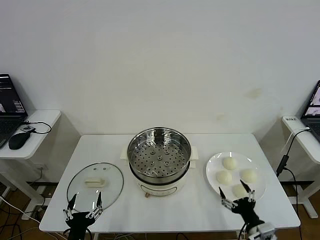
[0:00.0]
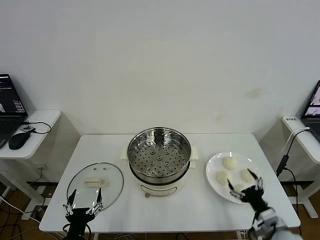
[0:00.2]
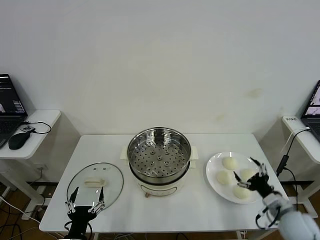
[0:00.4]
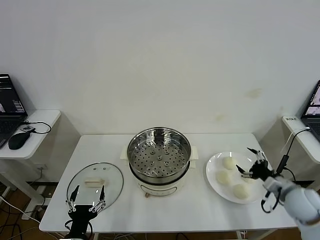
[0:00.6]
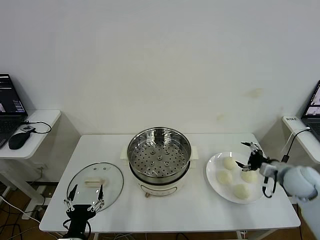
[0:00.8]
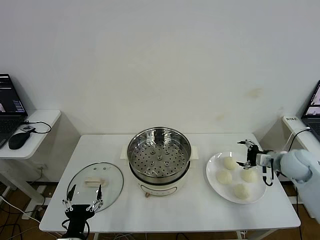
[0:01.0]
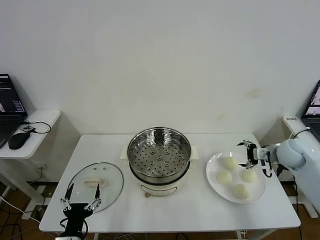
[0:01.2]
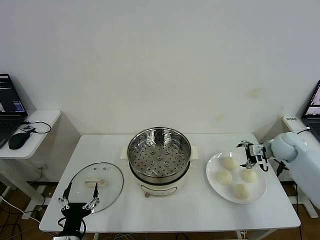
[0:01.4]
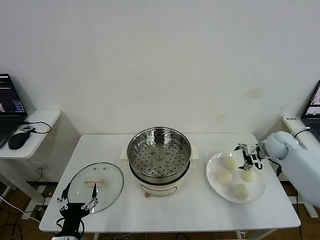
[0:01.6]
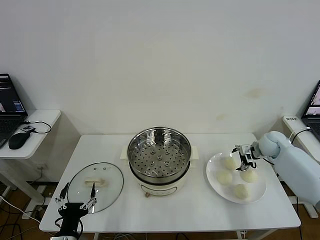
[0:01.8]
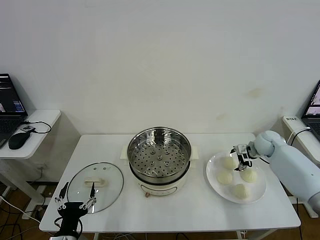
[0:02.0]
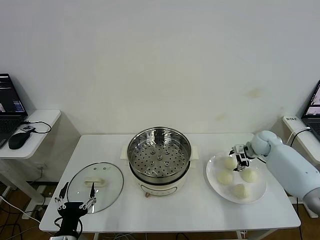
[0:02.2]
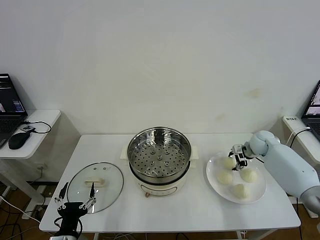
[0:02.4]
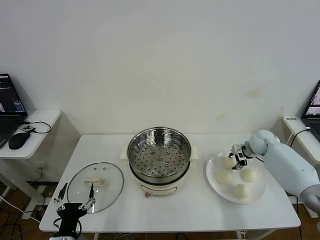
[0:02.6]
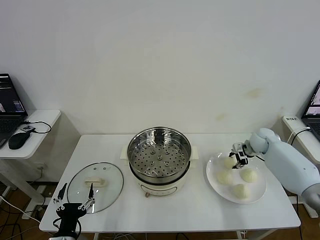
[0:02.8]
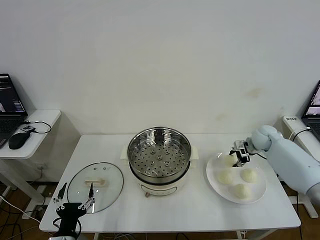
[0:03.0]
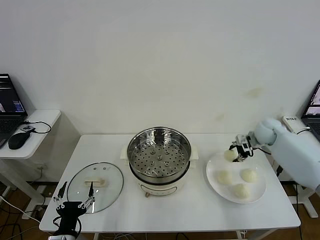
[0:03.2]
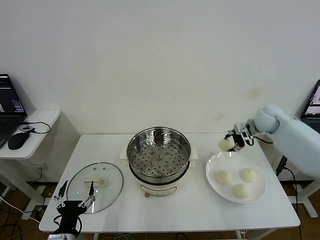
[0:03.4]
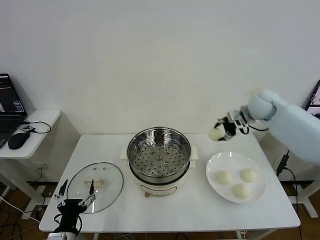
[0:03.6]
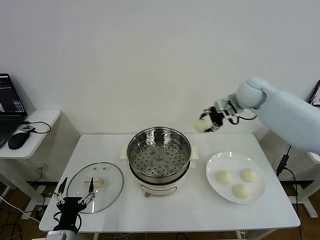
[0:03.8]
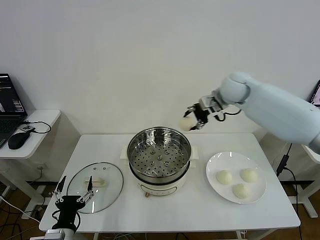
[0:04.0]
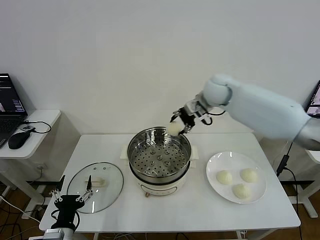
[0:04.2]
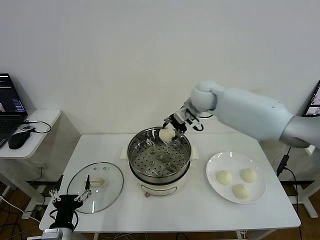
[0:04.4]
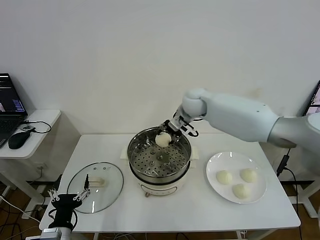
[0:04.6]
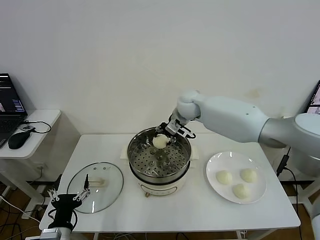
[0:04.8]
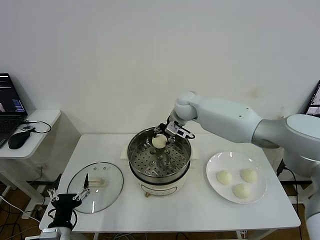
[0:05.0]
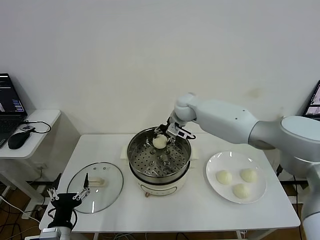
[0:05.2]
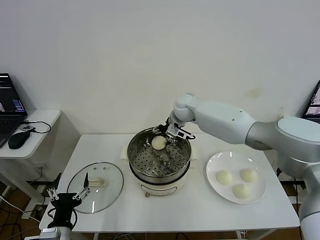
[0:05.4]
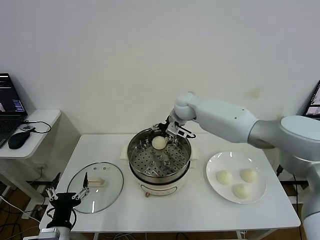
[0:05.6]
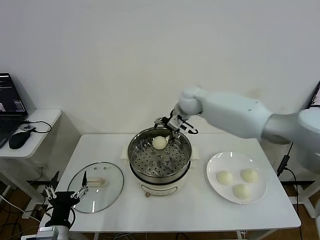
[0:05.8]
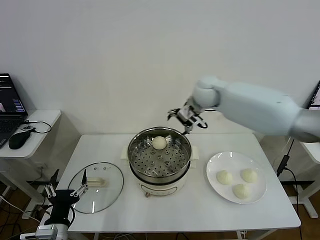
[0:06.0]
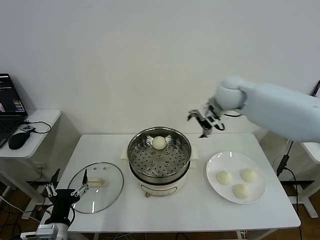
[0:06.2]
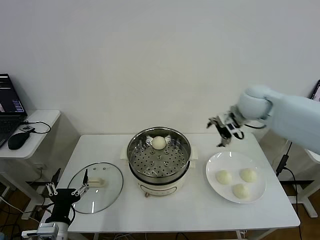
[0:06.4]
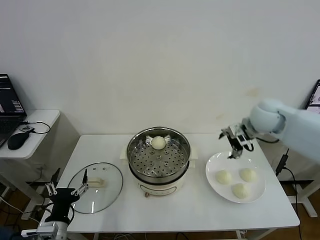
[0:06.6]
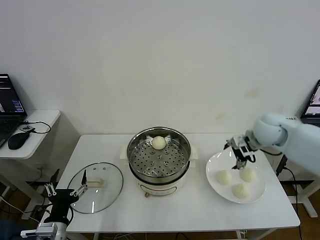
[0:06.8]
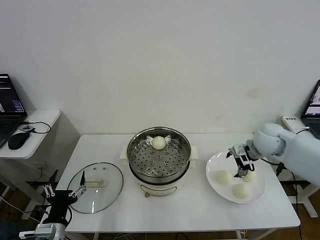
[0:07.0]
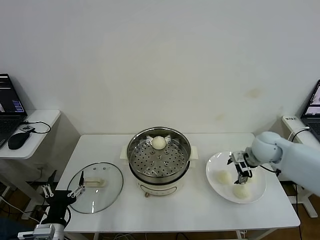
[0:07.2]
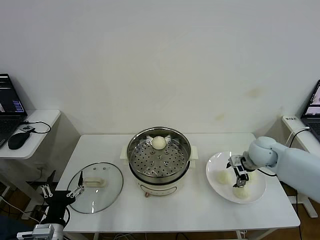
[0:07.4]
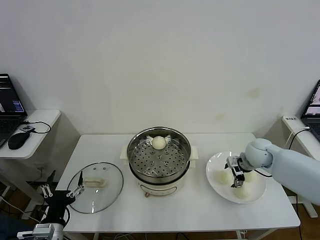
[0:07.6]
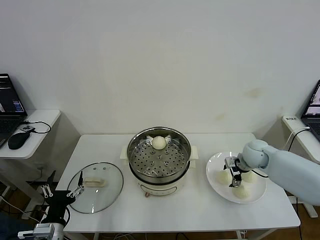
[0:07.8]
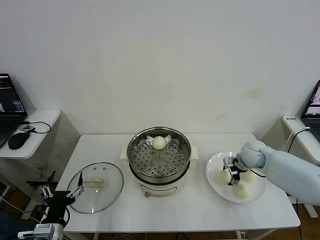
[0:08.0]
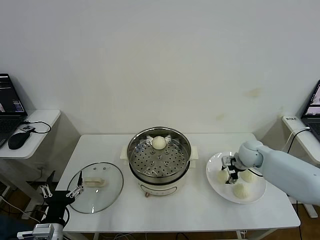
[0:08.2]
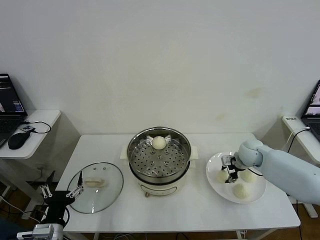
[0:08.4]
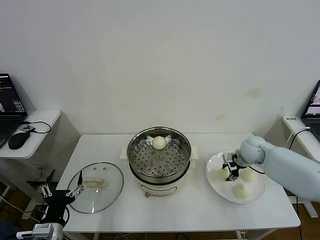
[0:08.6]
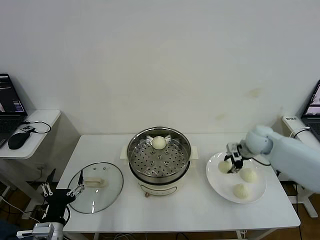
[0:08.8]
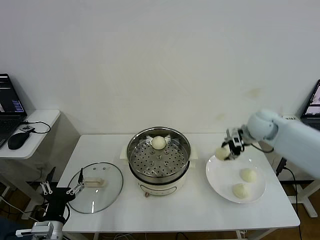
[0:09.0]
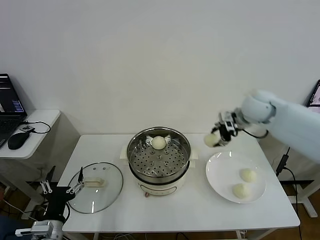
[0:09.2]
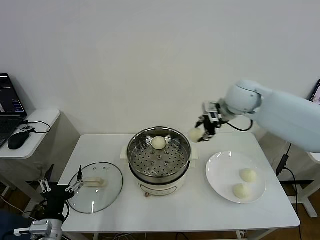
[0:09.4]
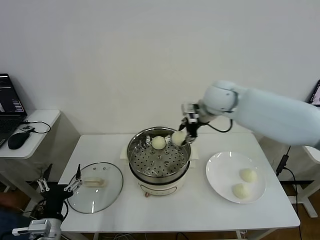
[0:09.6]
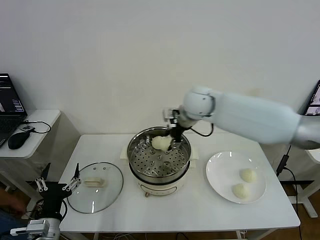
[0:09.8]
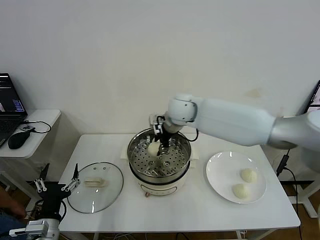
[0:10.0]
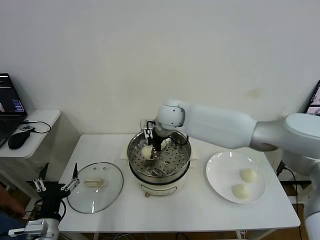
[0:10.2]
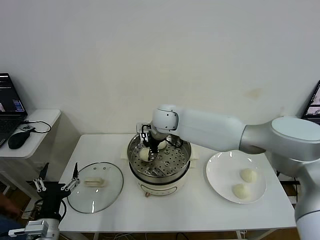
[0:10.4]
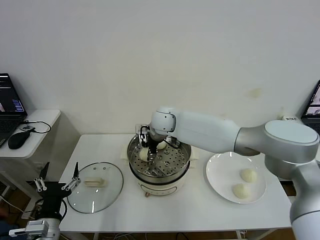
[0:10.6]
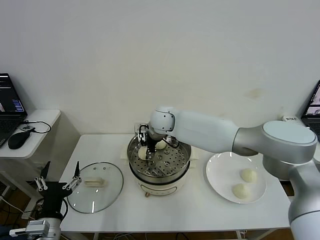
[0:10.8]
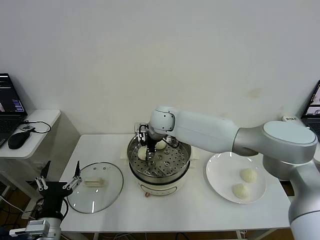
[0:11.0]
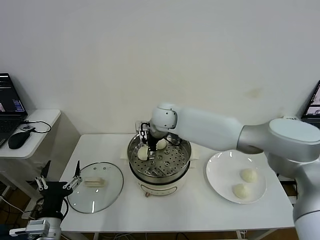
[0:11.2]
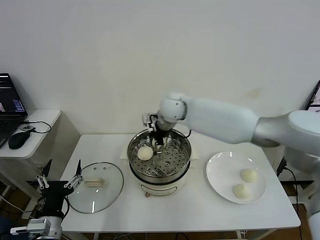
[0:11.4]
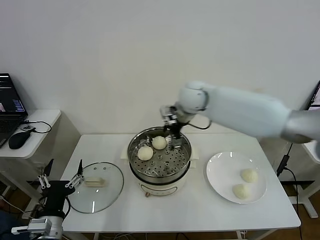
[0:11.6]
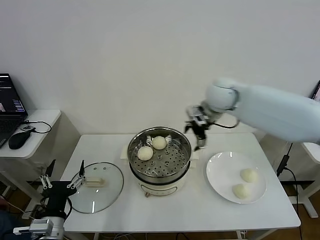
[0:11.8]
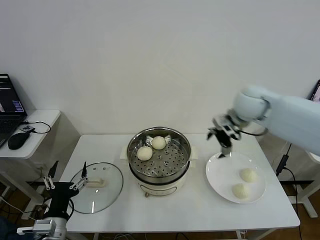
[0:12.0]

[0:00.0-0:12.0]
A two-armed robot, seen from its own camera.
Step, 0.0 to 2.6 s: Grasp the baozi in the plate with right gripper.
Step, 2.8 to 5.4 s: Place the baozi on the steamer with right gripper.
Step, 5.6 to 8.4 s: Grasp the baozi in the plate with right gripper.
Step, 8.6 to 11.0 s: Place the baozi on the steamer with right gripper.
1.6 to 3.0 s: The right gripper closes its fingers.
3.0 to 4.4 s: The right gripper goes about 30 cm to the left and upward.
4.4 to 6.0 s: The right gripper heads to the right, covering some 5 cm, and opens its fingers.
6.0 to 7.6 s: The right gripper heads downward, to the right and backward, covering roughly 25 cm.
7.6 to 9.0 s: The right gripper shifts approximately 15 cm upward, and closes up.
9.0 to 10.4 s: The right gripper is displaced to the left by some 30 cm.
10.4 to 12.0 s: The right gripper heads to the right, covering approximately 30 cm, and opens.

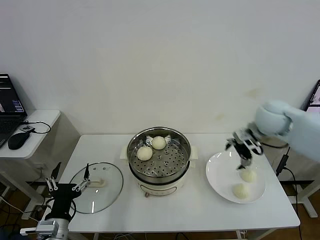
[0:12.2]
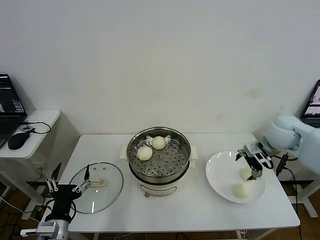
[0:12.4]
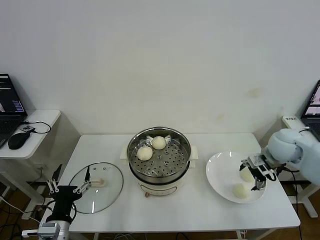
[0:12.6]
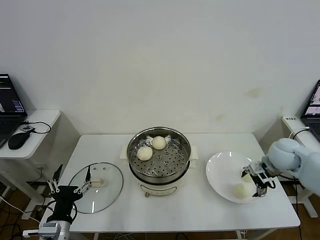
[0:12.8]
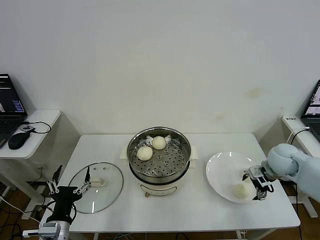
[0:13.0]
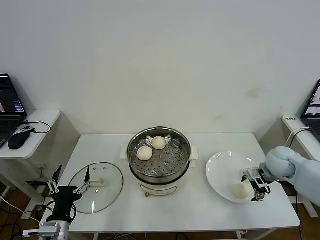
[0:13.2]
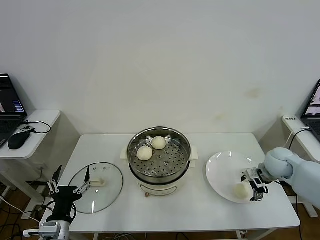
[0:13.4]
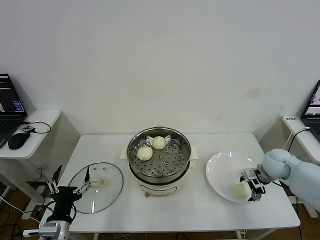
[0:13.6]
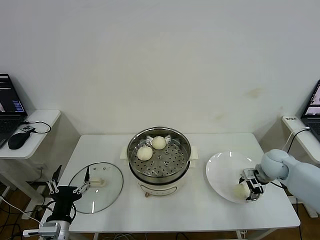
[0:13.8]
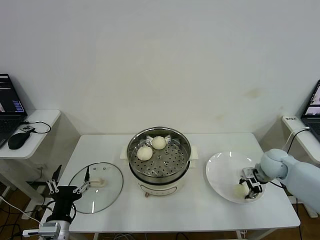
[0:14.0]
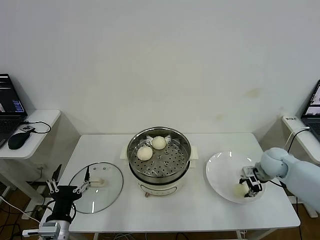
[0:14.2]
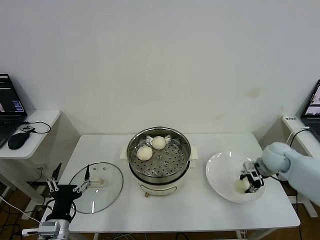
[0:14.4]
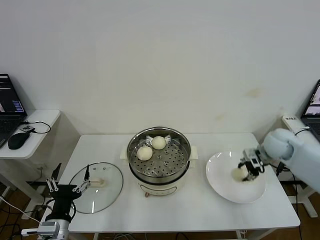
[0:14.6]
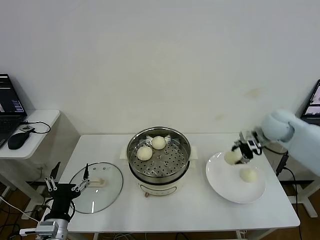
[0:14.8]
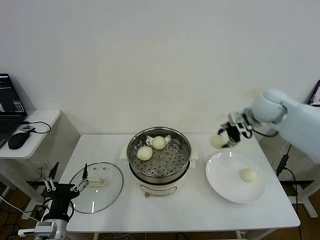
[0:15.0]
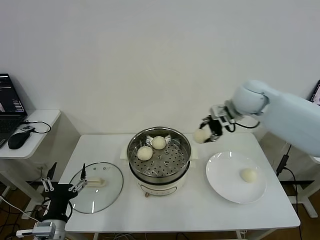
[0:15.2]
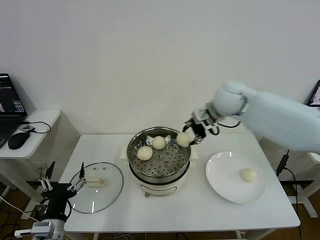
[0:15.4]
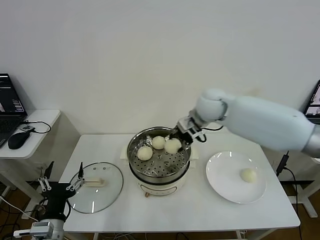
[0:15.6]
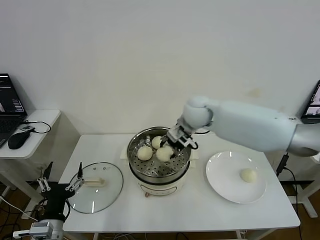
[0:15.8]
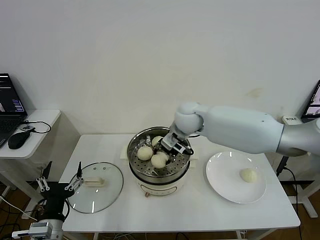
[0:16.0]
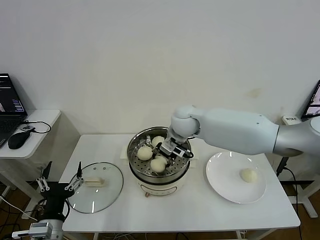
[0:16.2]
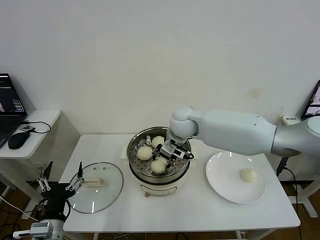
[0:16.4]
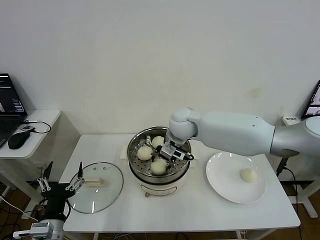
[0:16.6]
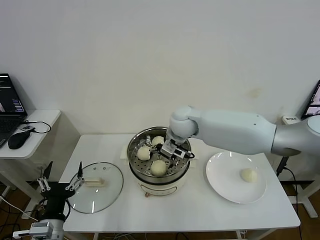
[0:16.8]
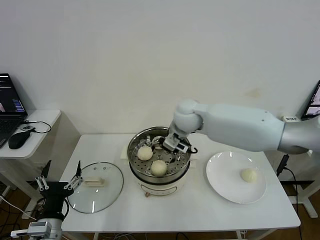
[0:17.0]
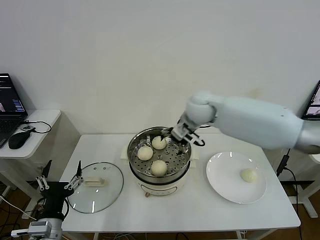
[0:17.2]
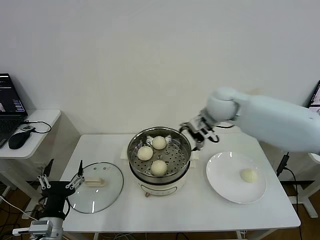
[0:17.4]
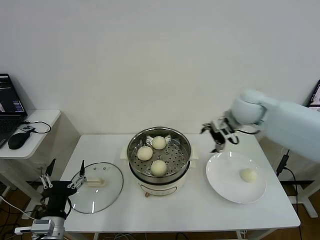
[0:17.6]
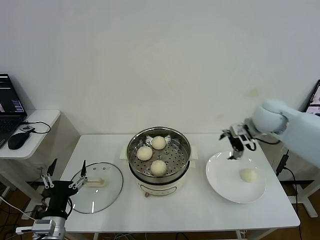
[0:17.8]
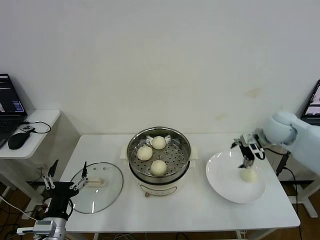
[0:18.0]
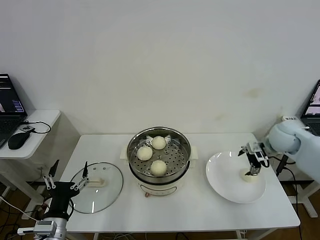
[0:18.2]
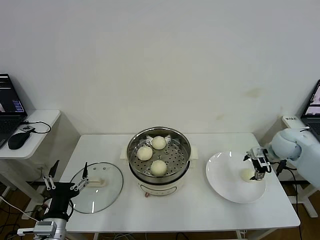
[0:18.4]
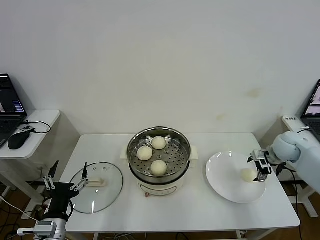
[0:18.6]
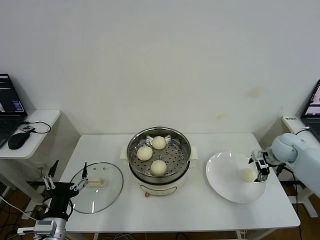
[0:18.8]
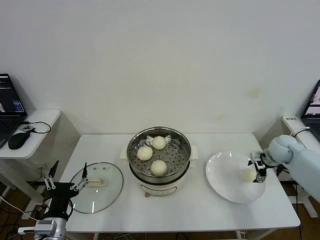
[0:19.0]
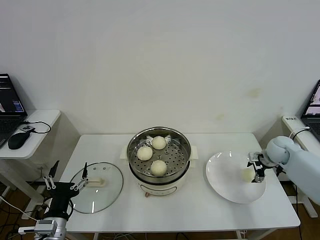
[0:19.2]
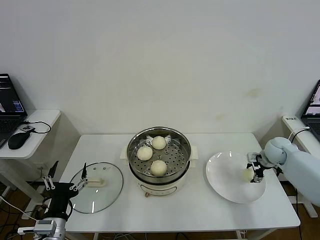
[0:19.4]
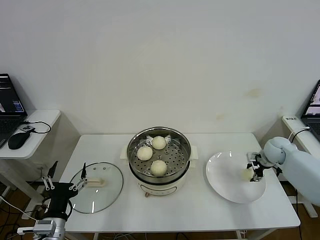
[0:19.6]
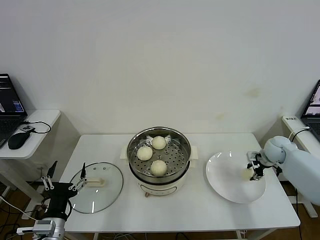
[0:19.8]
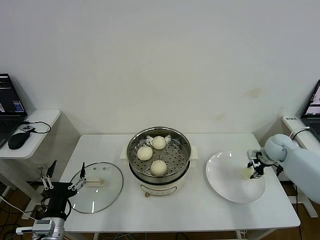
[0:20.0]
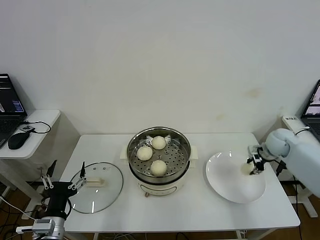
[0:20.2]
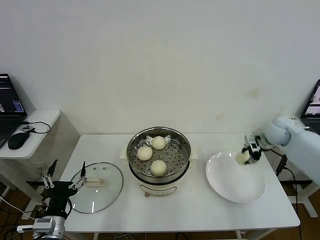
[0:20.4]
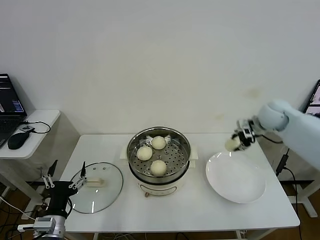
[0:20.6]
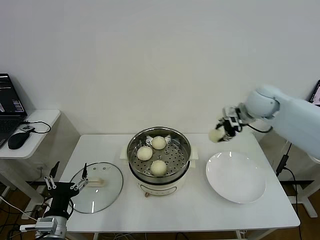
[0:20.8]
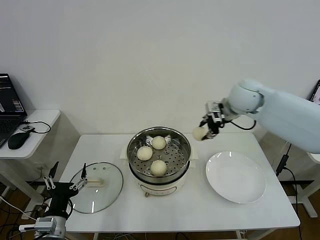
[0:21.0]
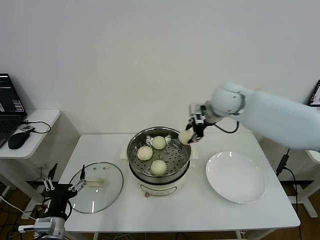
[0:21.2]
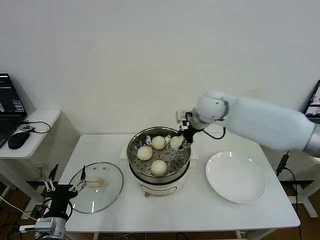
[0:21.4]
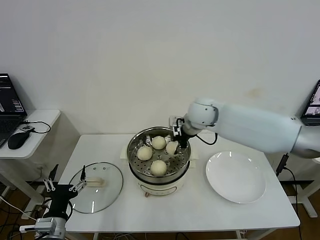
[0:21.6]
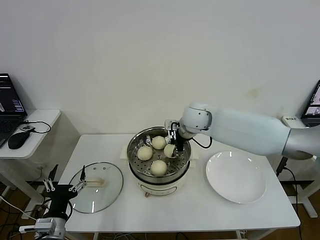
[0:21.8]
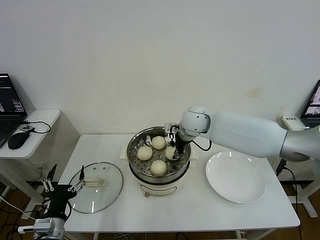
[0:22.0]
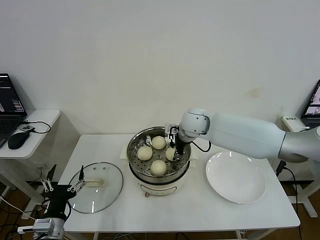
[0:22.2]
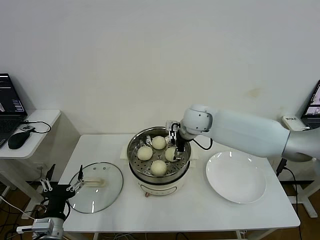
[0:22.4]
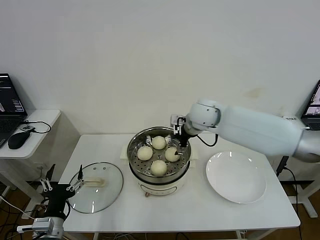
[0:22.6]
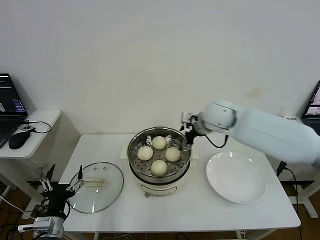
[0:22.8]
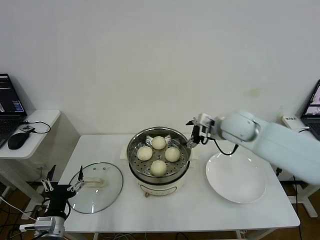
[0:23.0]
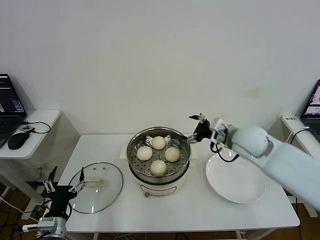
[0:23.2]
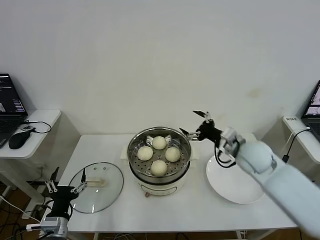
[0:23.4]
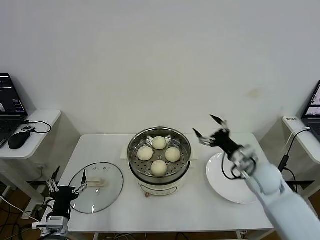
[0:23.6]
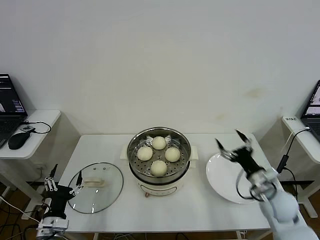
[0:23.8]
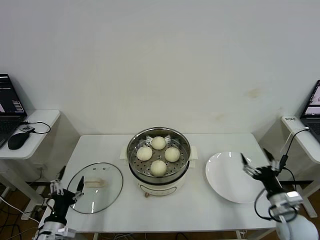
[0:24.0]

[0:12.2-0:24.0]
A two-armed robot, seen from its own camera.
Step, 12.2 to 14.0 s: Grasp the baozi in the plate with right gripper.
Step, 14.2 to 16.6 s: Place the baozi on the steamer with right gripper.
Step, 16.8 to 19.8 s: Grasp the baozi in the plate with right gripper.
Step, 20.2 to 22.4 s: Place the baozi on the steamer with right gripper.
12.2 to 13.6 s: The right gripper shifts roughly 15 cm downward.
13.6 to 15.2 s: The right gripper travels upward and to the left by approximately 25 cm, and closes up.
15.2 to 16.6 s: The right gripper goes roughly 20 cm to the left and downward, and opens up.
16.6 to 18.2 s: The right gripper goes approximately 35 cm to the right, and opens its fingers.
18.2 to 19.6 s: The right gripper heads downward, covering roughly 10 cm, and closes its fingers.
19.6 to 21.0 s: The right gripper heads upward and to the left, covering some 30 cm.
21.0 to 22.6 s: The right gripper is displaced to the left and downward by some 10 cm, and opens up.
22.6 to 24.0 s: The left gripper travels downward by some 5 cm, while the right gripper heads backward, to the right and downward, covering roughly 40 cm.
